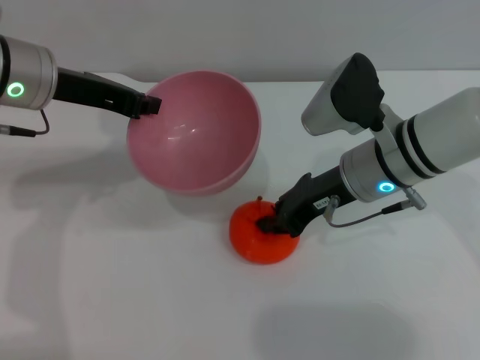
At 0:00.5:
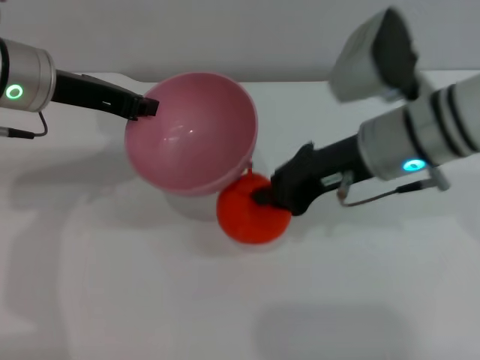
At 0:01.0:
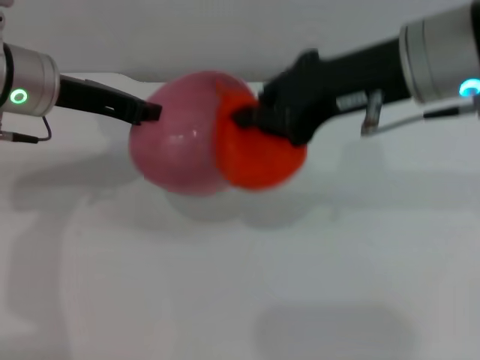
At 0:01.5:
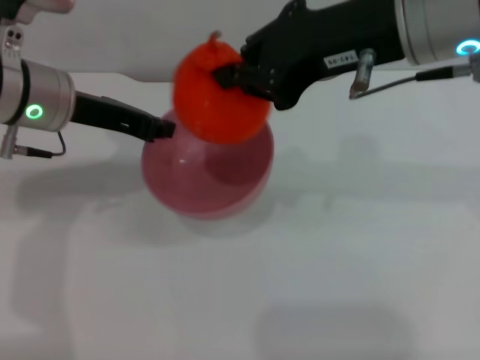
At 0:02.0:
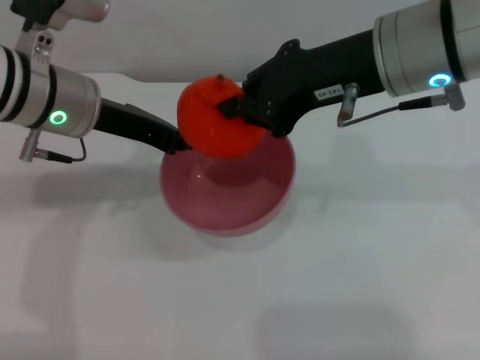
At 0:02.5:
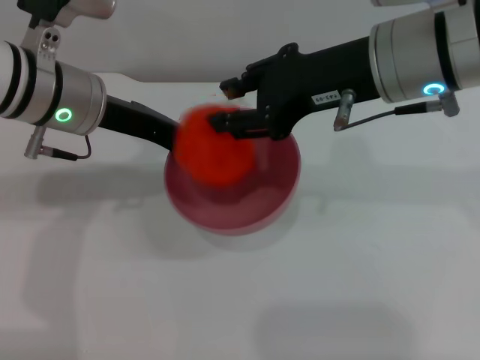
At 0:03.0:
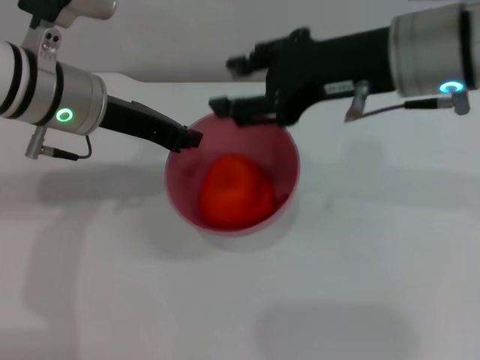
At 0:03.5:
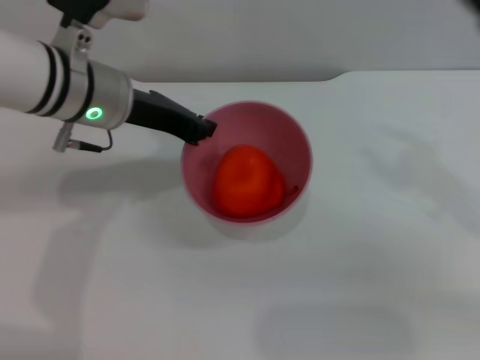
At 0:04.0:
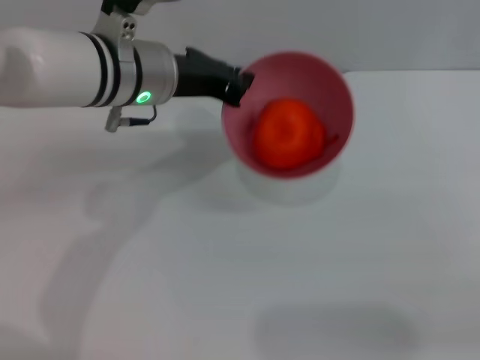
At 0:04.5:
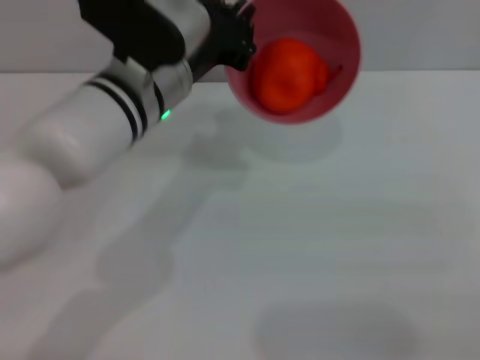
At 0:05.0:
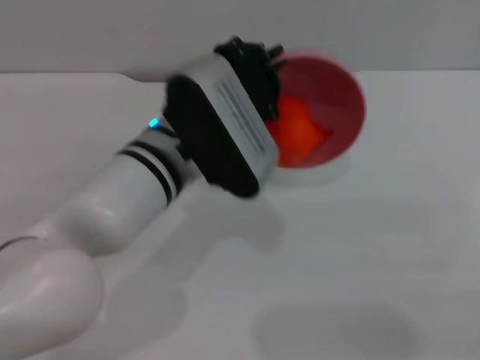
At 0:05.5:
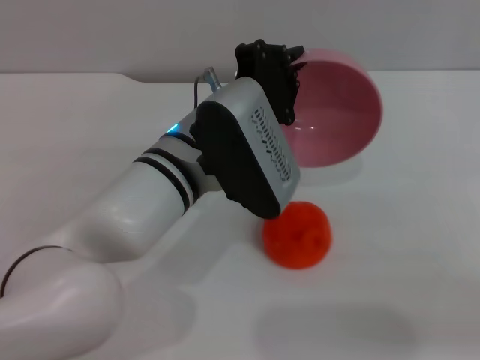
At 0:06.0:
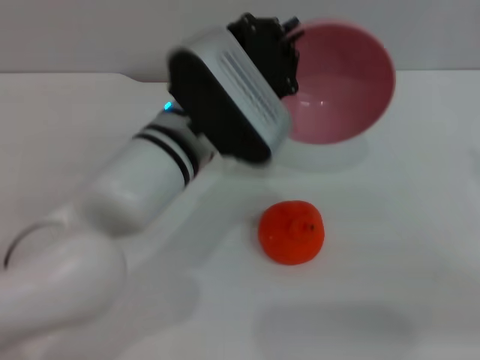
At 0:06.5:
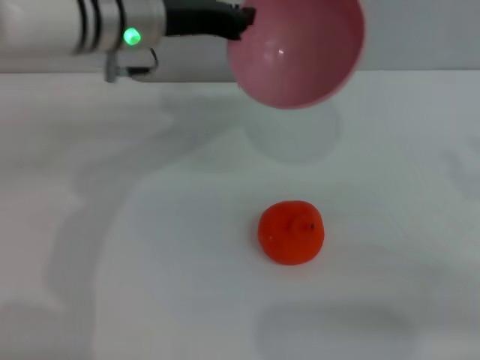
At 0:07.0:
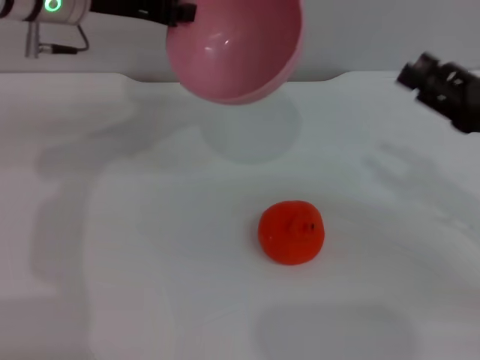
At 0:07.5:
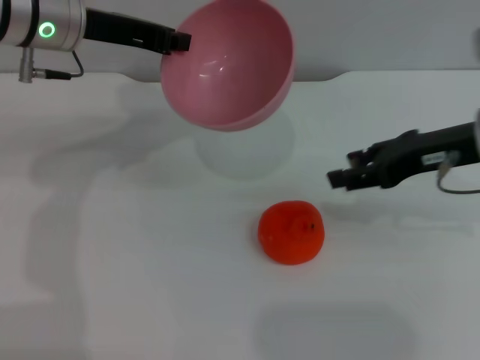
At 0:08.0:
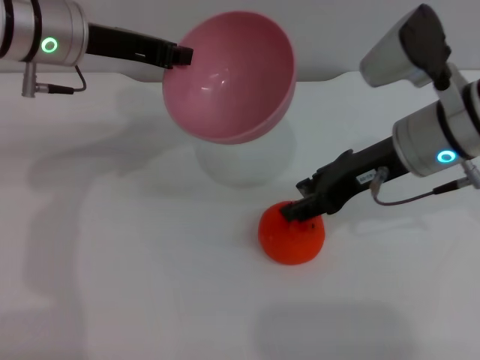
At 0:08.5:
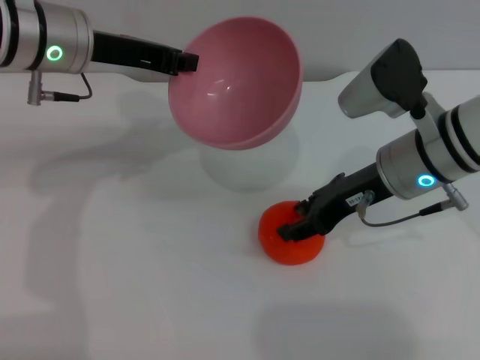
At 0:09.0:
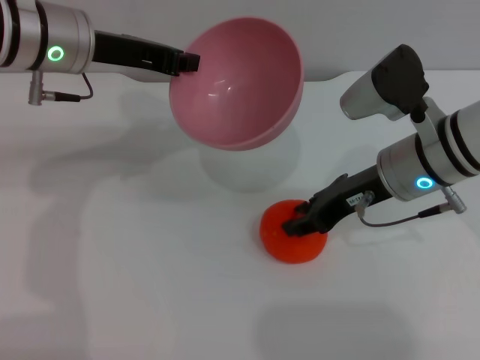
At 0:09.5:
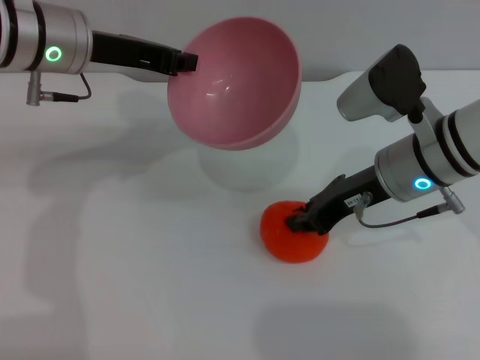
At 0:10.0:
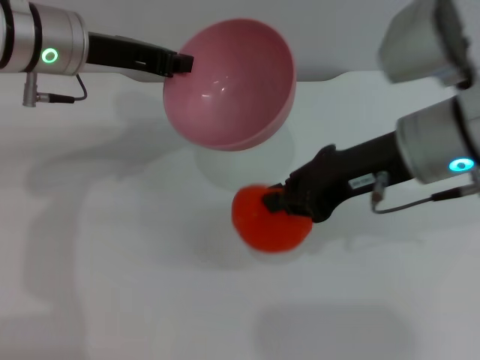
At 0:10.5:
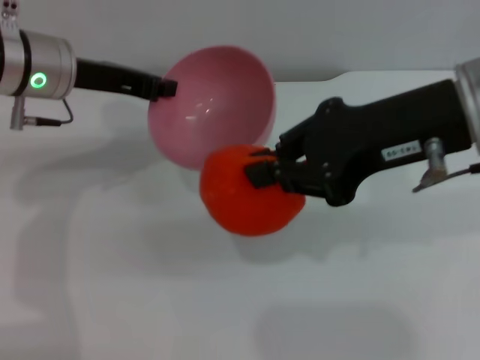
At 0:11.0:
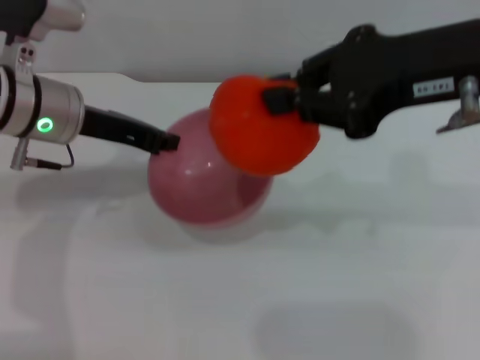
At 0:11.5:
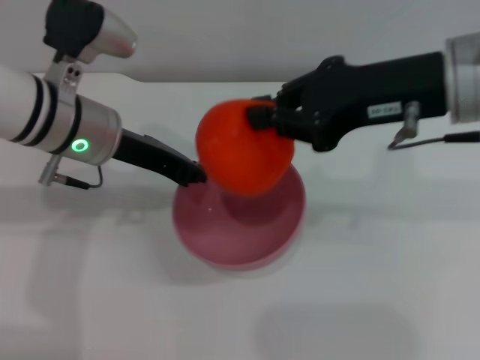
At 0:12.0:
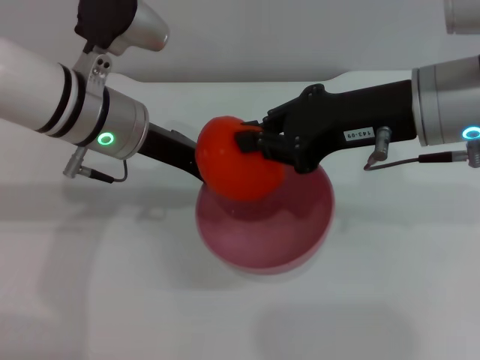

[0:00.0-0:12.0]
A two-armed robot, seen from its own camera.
Task of the whole recording: put the orange into the pink bowl and pour it out repeatedly.
Step, 0:00.5 to 0:02.5: Place the orange into the bowl.
Step, 0:03.0 to 0:06.0: Pour the orange out of the bowl.
Step, 0:06.5 to 0:09.5: Pick up the orange with the right gripper.
0:00.0 to 0:02.0: The right gripper heads upward, covering some 15 cm, and closes.
0:02.0 to 0:04.0: The right gripper heads to the right, downward and backward, covering some 30 cm, and opens; the left gripper travels to the right by roughly 5 cm.
0:04.0 to 0:06.0: The left gripper goes approximately 10 cm backward and to the right.
0:06.0 to 0:08.0: The right gripper moves to the left and forward, approximately 20 cm. Meanwhile the left gripper heads to the left, forward and upward, covering some 20 cm.
0:08.0 to 0:10.0: The right gripper changes place by some 5 cm, and closes.
0:10.0 to 0:12.0: The left gripper shifts by roughly 5 cm. Meanwhile the right gripper goes upward and returns, roughly 10 cm each way.

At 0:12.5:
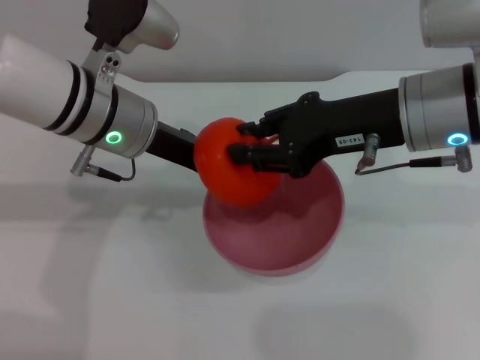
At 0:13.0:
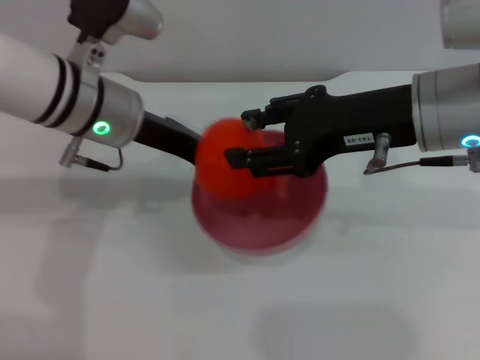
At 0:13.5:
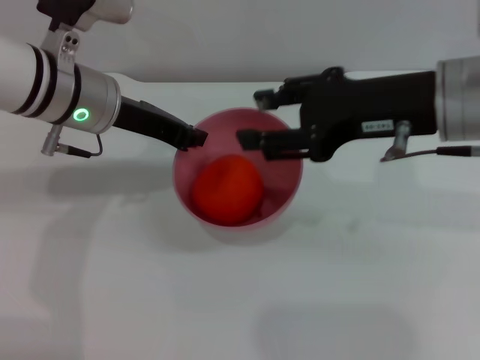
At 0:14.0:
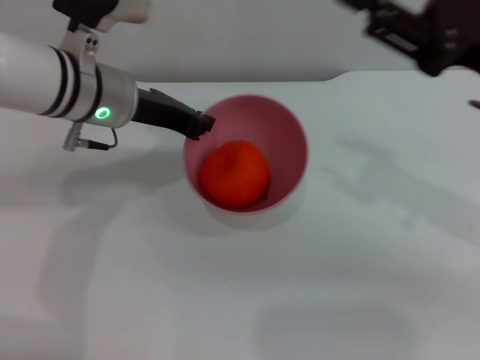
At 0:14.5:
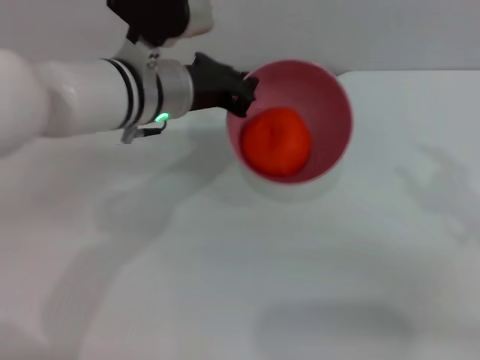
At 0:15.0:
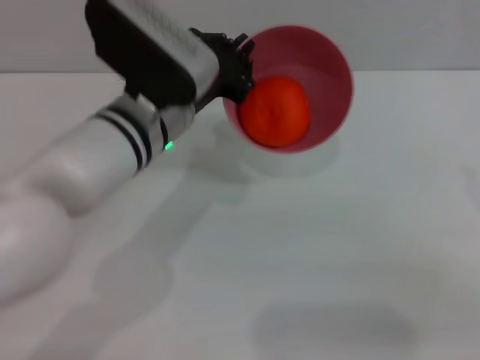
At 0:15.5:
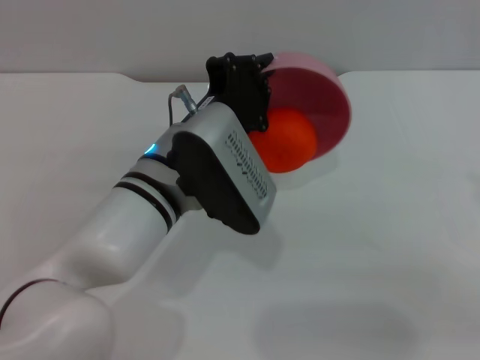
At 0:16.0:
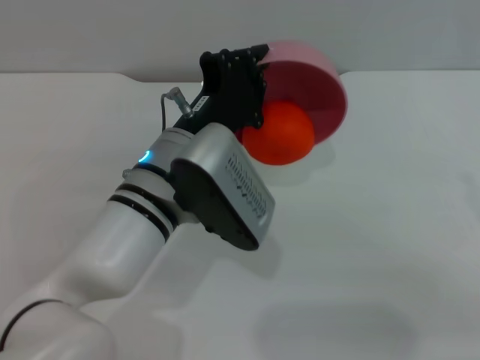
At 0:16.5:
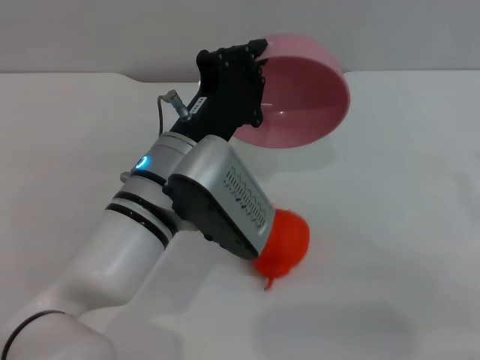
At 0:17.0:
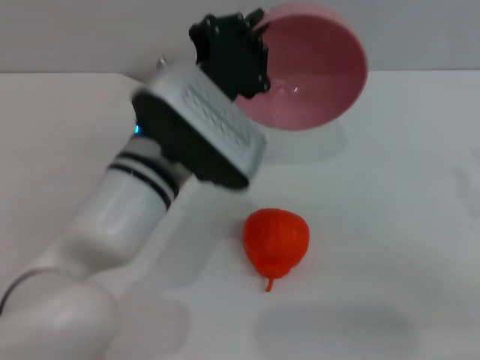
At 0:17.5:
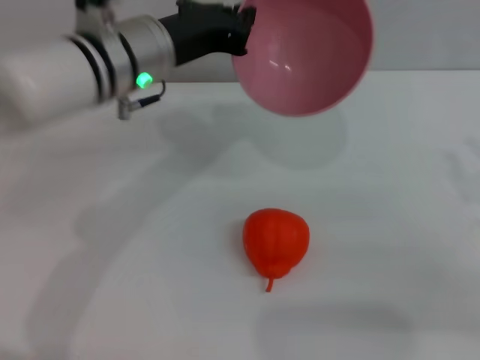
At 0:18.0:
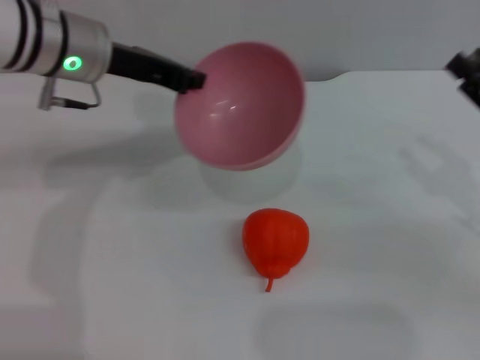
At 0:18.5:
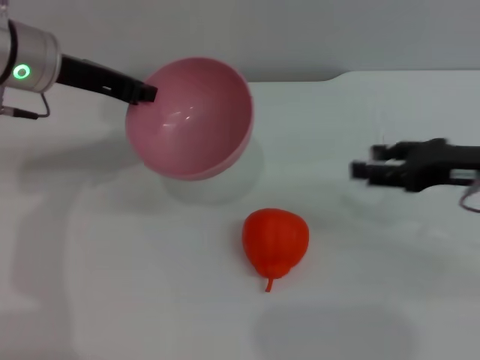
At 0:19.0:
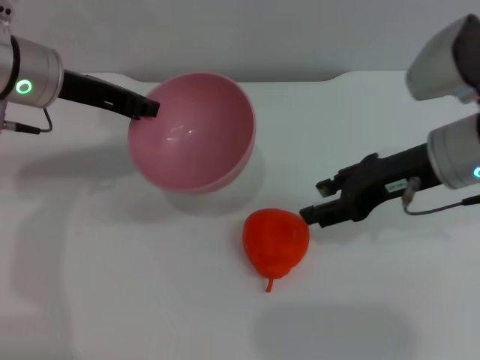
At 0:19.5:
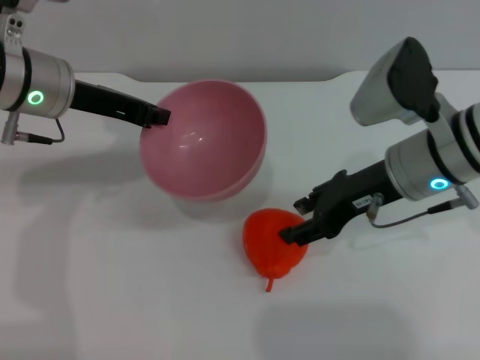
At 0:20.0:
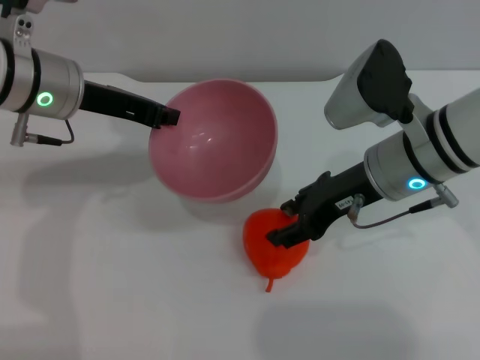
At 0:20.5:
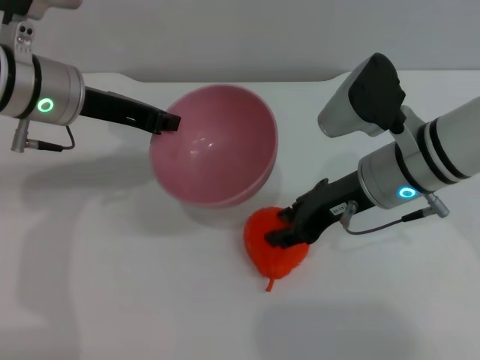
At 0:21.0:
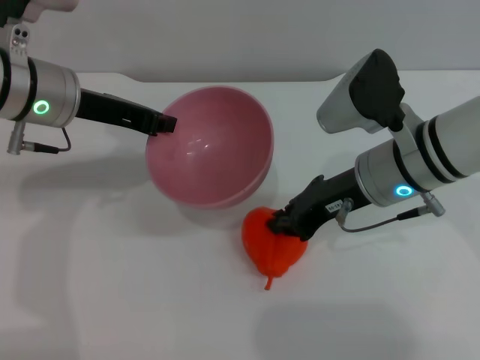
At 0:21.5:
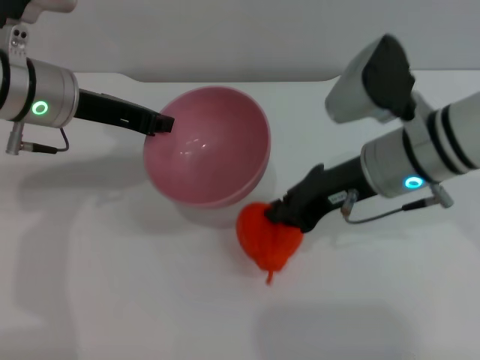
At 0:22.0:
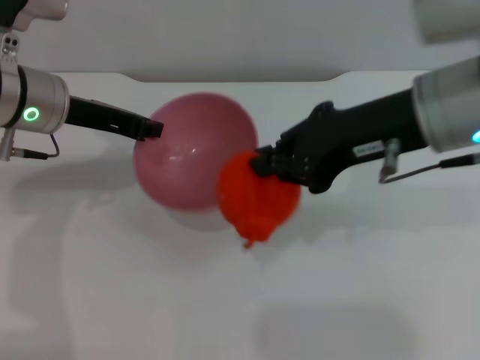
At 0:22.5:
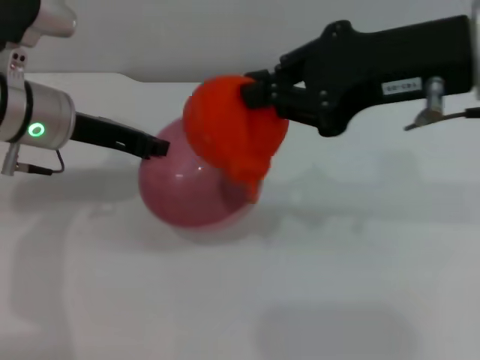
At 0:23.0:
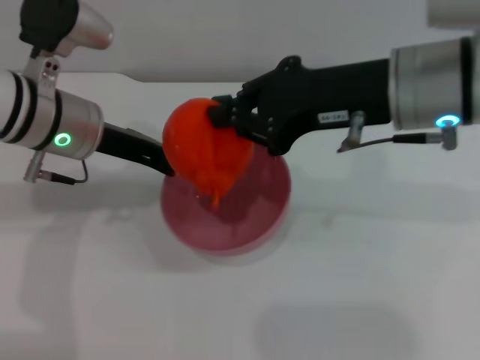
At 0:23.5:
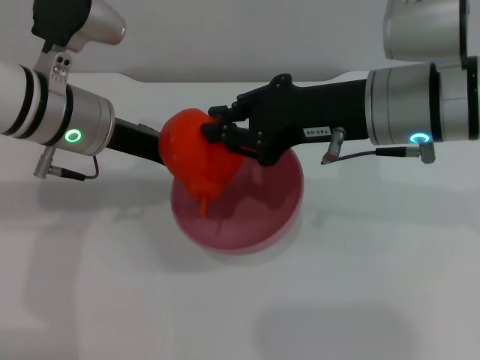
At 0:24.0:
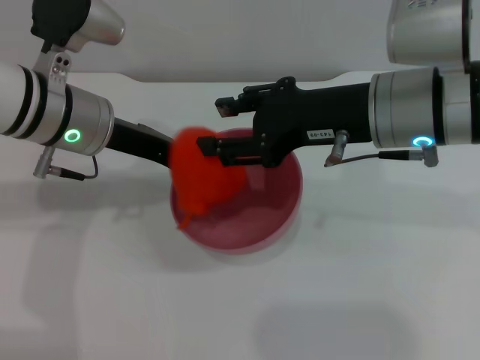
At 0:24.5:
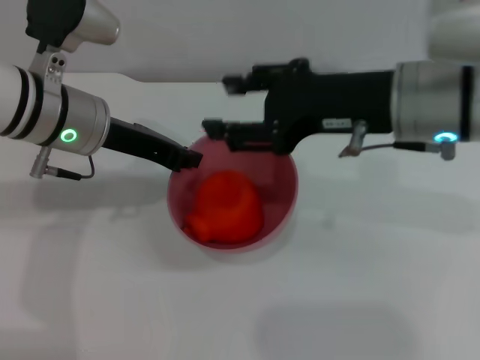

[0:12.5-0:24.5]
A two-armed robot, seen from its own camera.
Task of the whole recording: put the orange into the pink bowl and pour it out repeatedly.
Step, 0:14.0 to 0:16.5: Pour the orange out of the bowl.
Step, 0:17.0 to 0:21.5: Pick up the orange with the right gripper.
Step, 0:22.0 to 0:24.0: Place the orange into the bowl.
0:12.5 to 0:14.5: The right gripper travels to the right and backward by some 15 cm, and opens its fingers.
0:14.5 to 0:16.5: The left gripper travels backward by roughly 10 cm.
0:16.5 to 0:18.5: The right gripper moves forward, about 10 cm; the left gripper heads to the left, forward and upward, covering about 20 cm.
0:18.5 to 0:20.5: The right gripper heads to the left, covering roughly 10 cm.
0:20.5 to 0:22.5: The right gripper shifts about 15 cm upward, and closes.
0:22.5 to 0:24.5: The right gripper travels downward by approximately 5 cm, and opens up.

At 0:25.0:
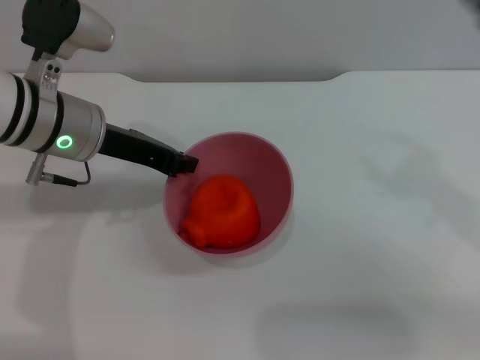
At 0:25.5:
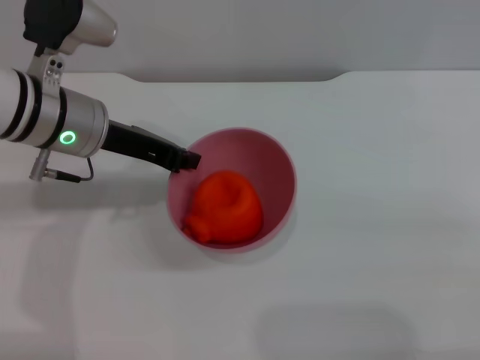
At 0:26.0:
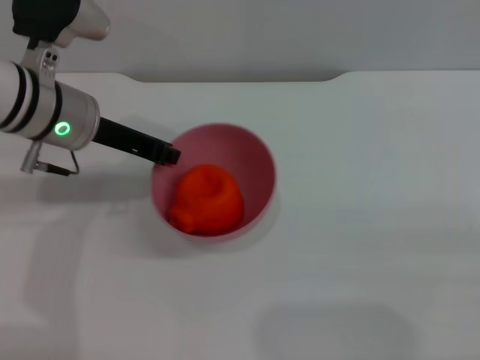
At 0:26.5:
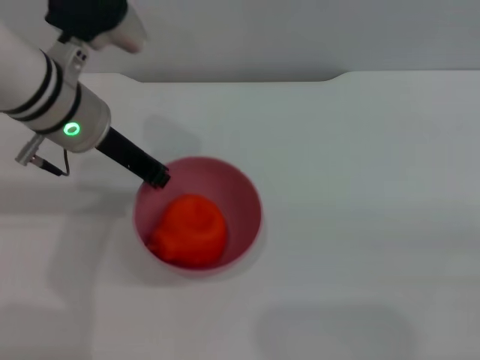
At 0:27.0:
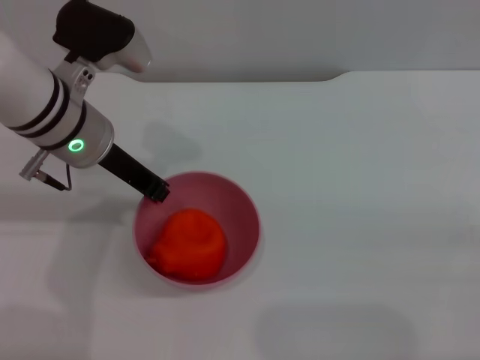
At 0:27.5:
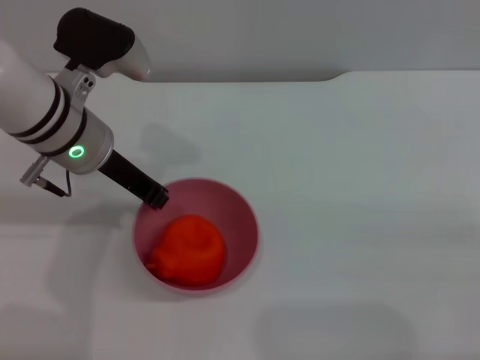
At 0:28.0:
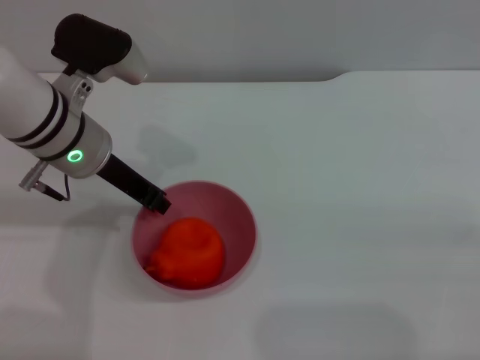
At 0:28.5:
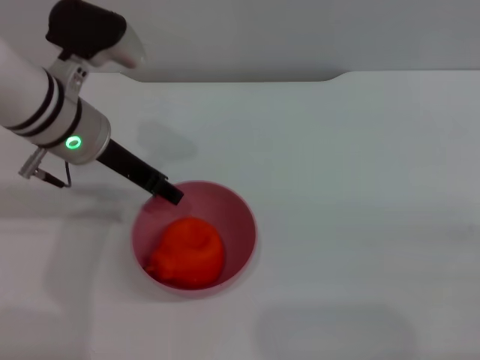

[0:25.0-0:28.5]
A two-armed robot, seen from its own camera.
Task of the whole recording: put the orange into the pink bowl and pour it out repeatedly.
0:25.0 to 0:27.0: The right gripper goes some 20 cm to the right, downward and backward.
0:27.0 to 0:28.5: The left gripper opens.
